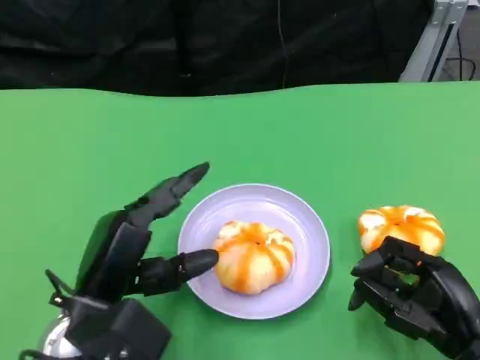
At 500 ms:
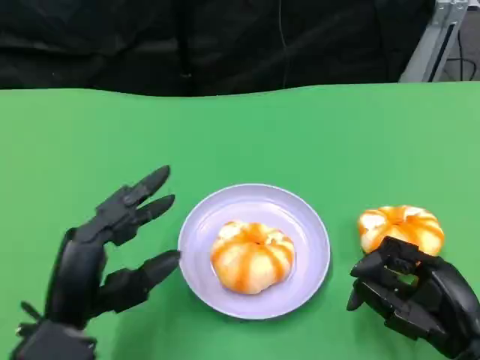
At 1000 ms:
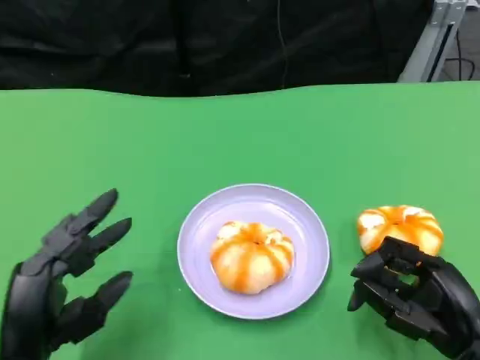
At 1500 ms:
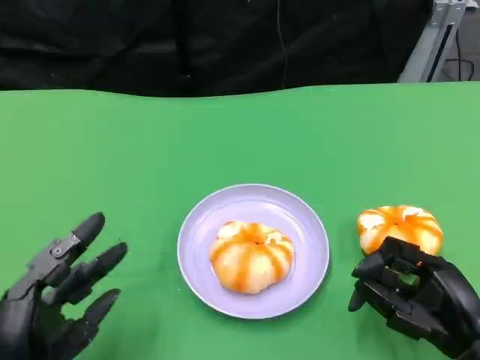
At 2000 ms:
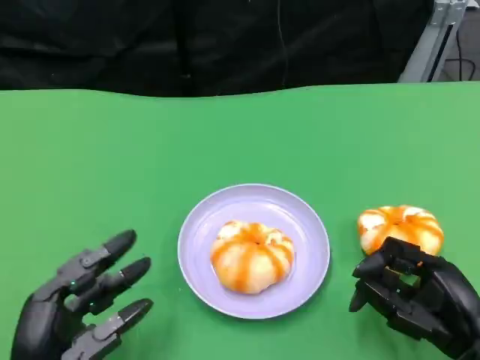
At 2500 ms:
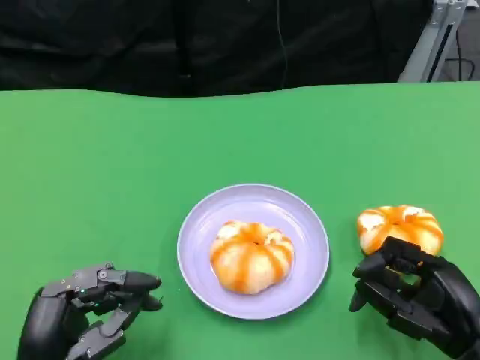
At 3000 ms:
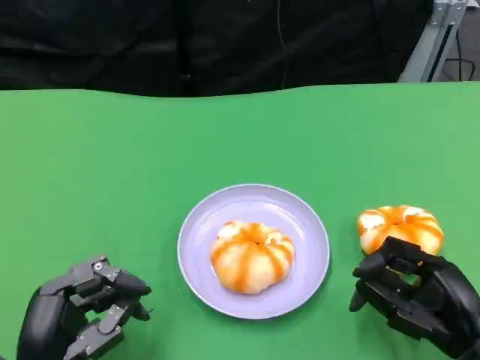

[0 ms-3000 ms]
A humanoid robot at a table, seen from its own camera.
Task of the whole recording: Grasp the bread from the table and place it into the plate.
0 ms to 1500 ms: The left hand goes some 10 cm backward and to the left.
1500 ms to 3000 ms: The hands stay close to where they were, moving slightly.

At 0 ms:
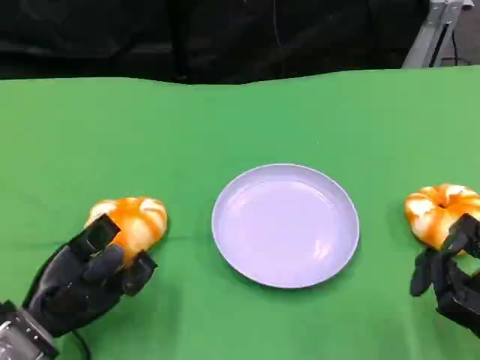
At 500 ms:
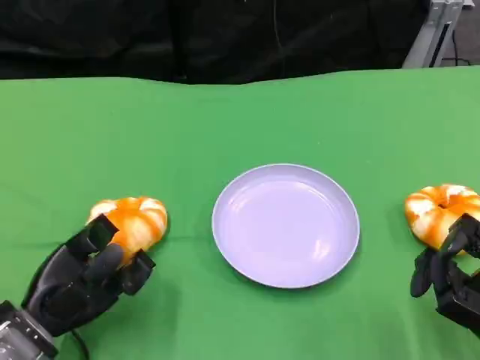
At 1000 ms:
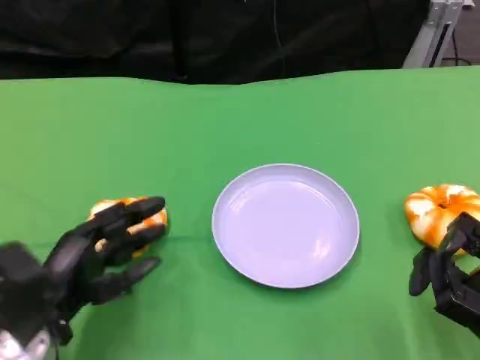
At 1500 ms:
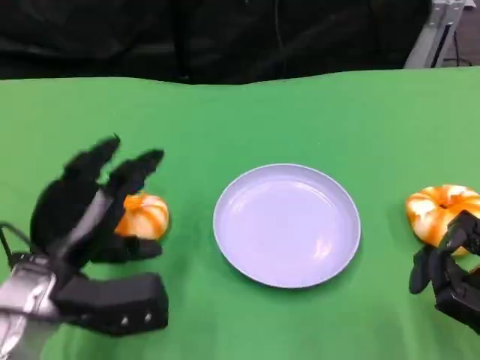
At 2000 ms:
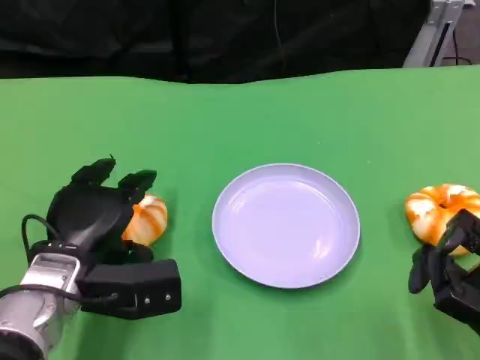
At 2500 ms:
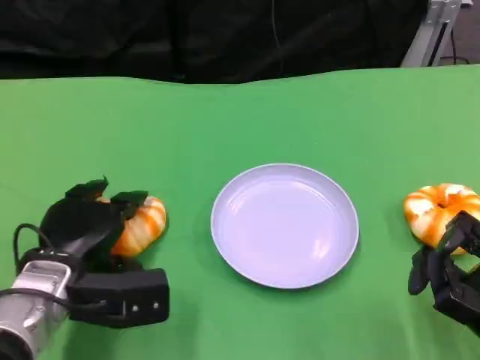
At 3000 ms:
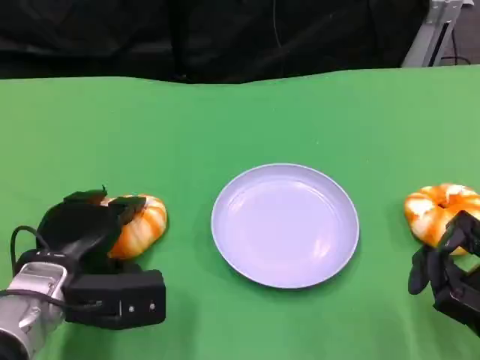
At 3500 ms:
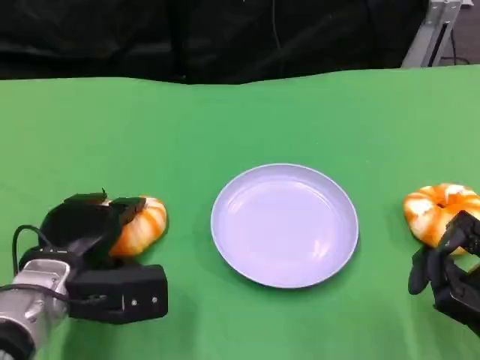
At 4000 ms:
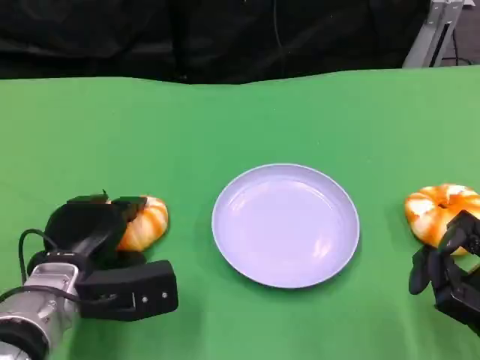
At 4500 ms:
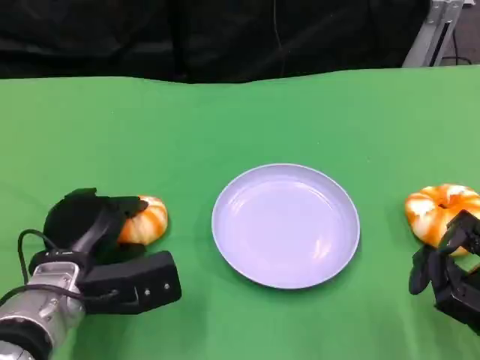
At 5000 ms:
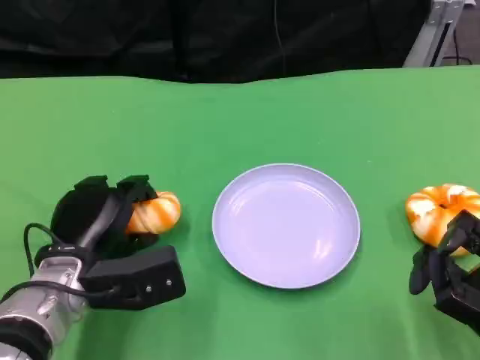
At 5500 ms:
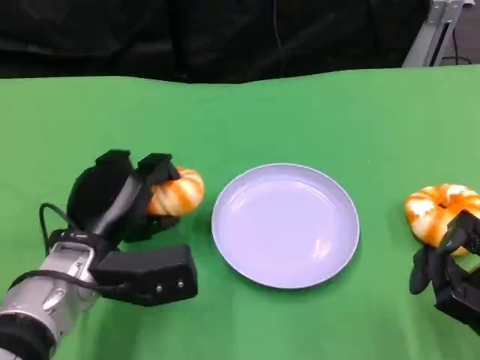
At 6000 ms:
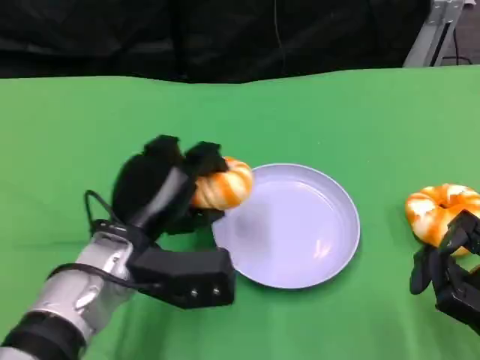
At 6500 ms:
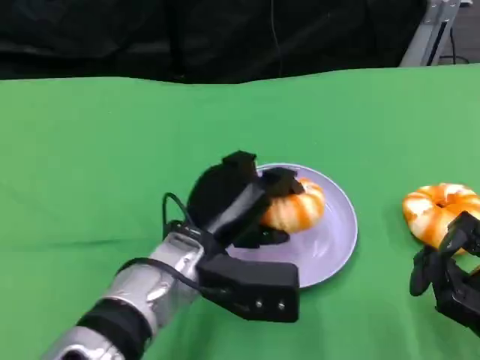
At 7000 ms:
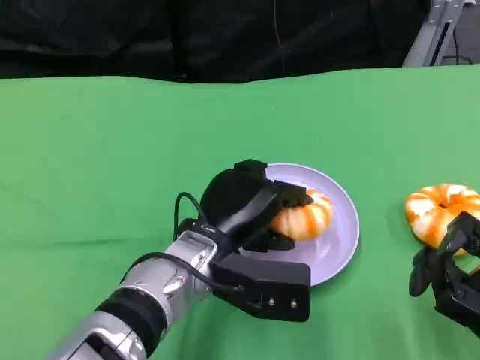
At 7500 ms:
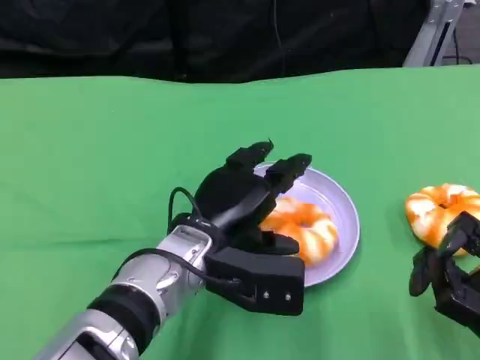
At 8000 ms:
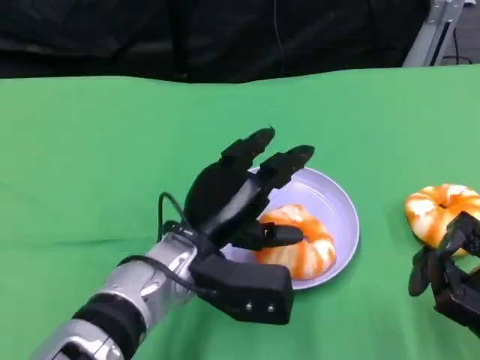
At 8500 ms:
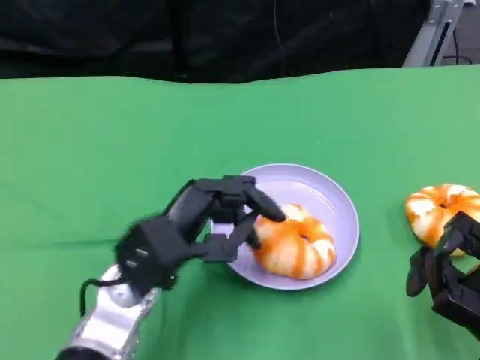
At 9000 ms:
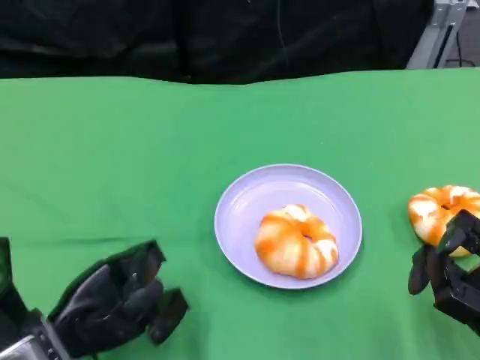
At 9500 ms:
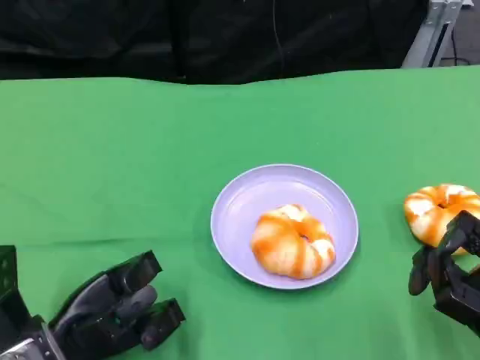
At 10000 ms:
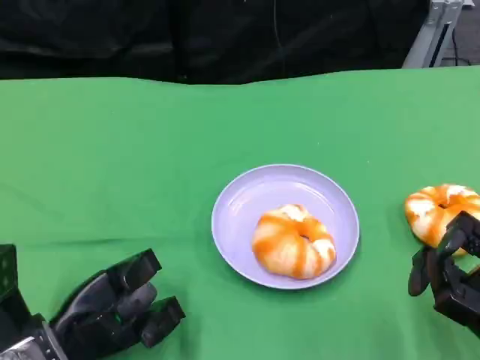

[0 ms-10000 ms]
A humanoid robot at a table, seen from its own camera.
Task of the whole recording: Grasp the bread from the table and place it into the plate.
0 ms to 2000 ms: The left hand heads to the right, covering approximately 5 cm.
2000 ms to 4000 ms: The hands move only a little.
4000 ms to 6000 ms: The left hand moves to the right, some 5 cm.
6000 ms to 8000 ms: The left hand moves to the right, some 5 cm.
8000 ms to 10000 ms: The left hand shifts some 15 cm to the left and downward.

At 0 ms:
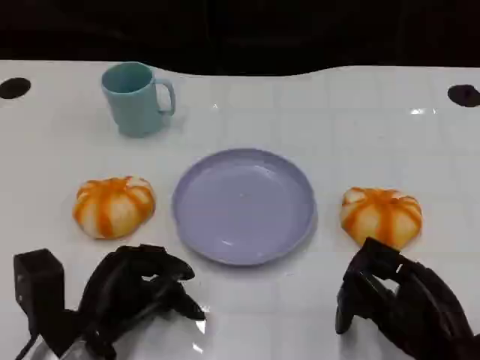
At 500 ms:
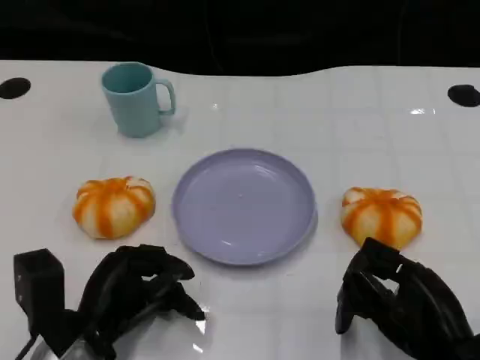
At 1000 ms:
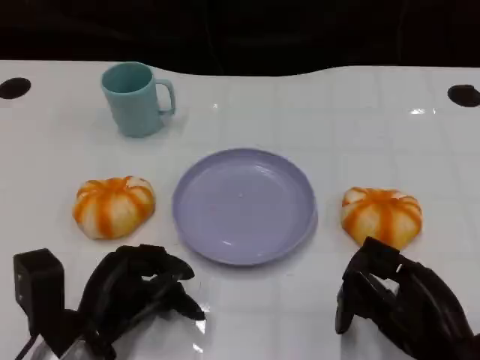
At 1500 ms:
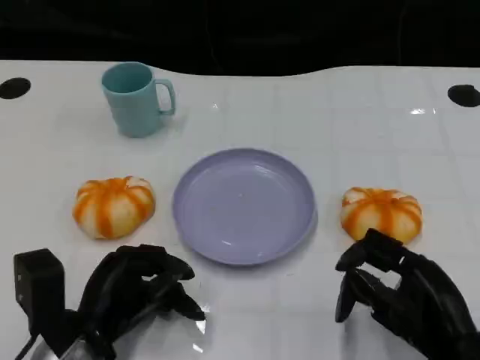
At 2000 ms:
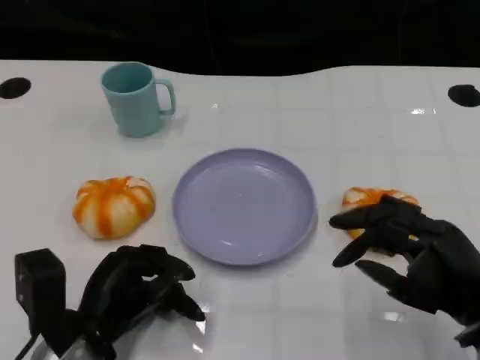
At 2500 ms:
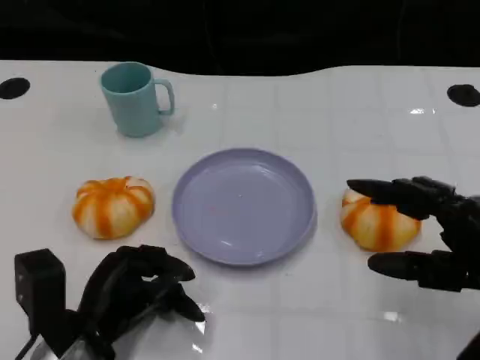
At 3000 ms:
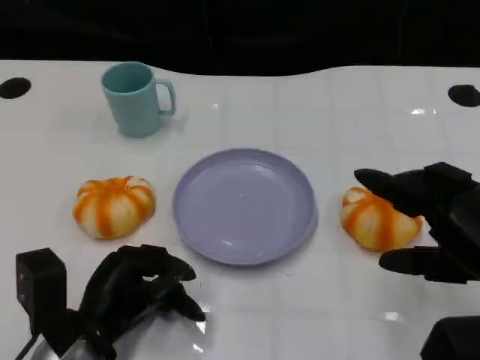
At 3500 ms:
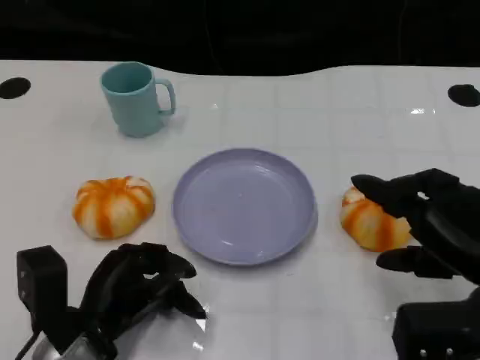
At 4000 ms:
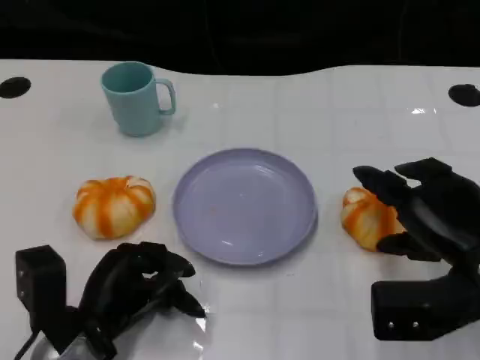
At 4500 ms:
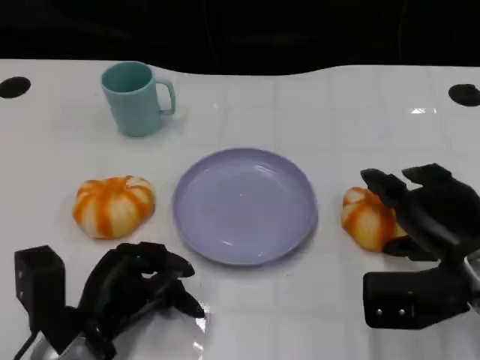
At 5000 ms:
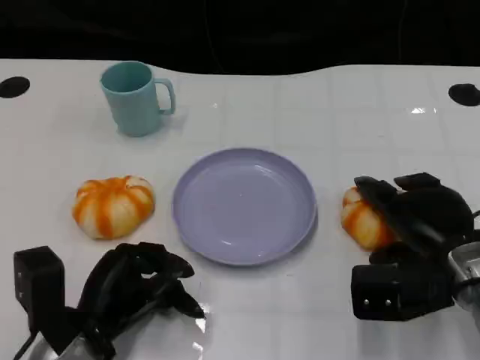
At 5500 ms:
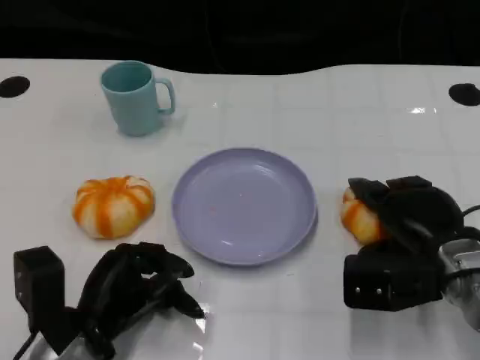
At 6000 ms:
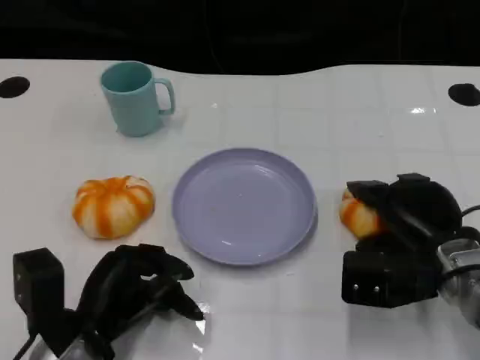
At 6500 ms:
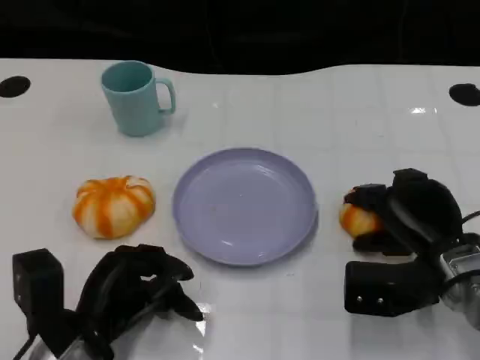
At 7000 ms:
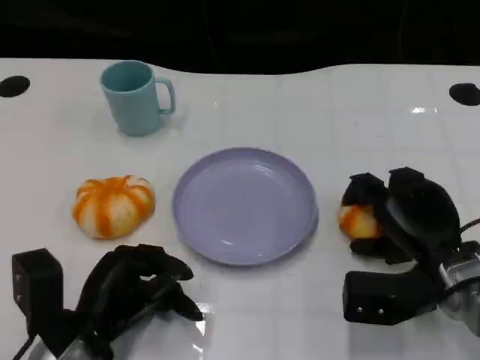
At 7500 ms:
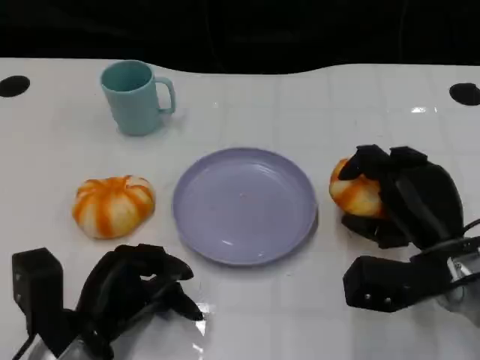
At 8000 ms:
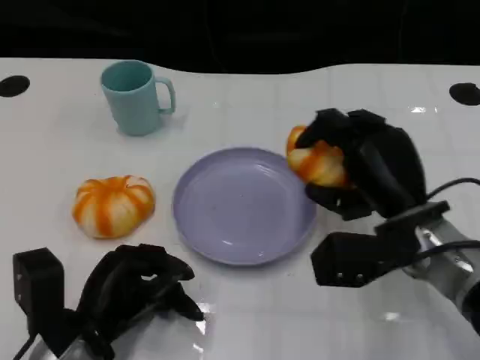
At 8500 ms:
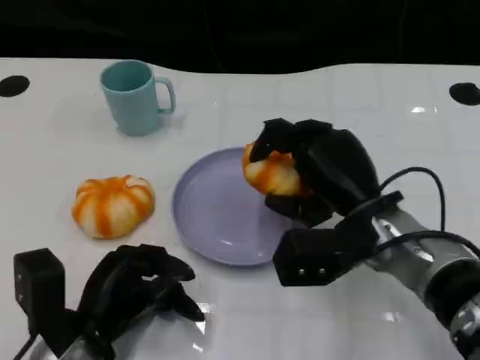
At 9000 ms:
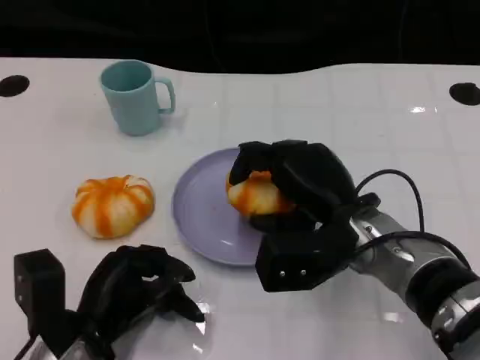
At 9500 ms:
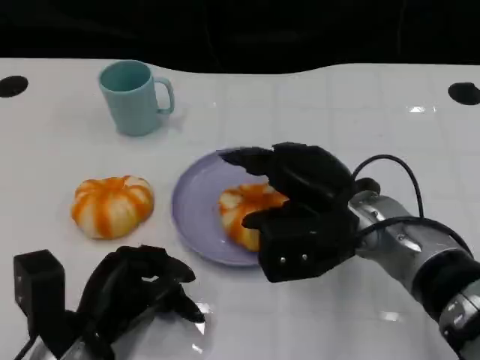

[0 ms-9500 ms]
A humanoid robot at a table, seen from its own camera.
Task of the whole recording: Grasp the bread from the table and place it into the plate.
2000 ms to 4000 ms: The right hand moves about 5 cm.
4000 ms to 5500 ms: The right hand ends up about 5 cm from where it was.
7500 ms to 9500 ms: The right hand goes roughly 10 cm to the left and upward.

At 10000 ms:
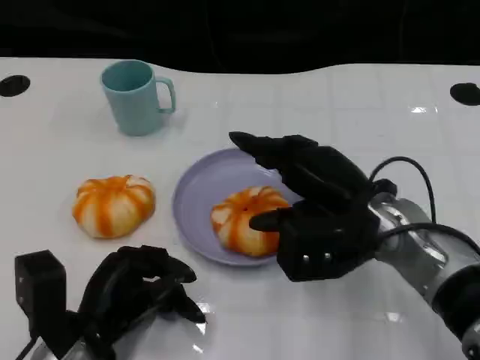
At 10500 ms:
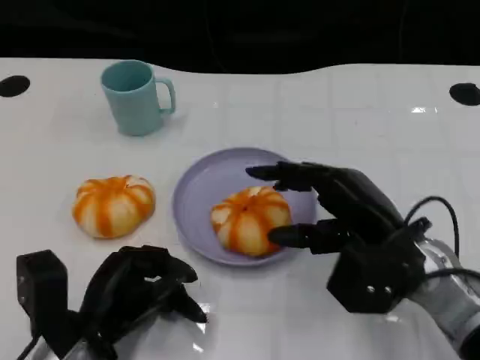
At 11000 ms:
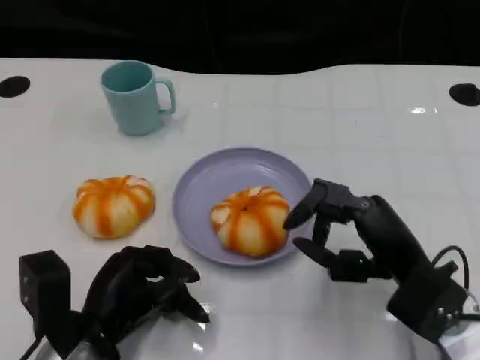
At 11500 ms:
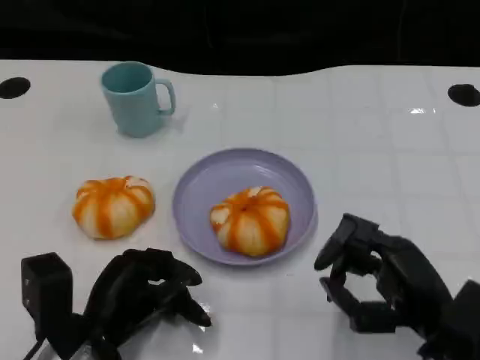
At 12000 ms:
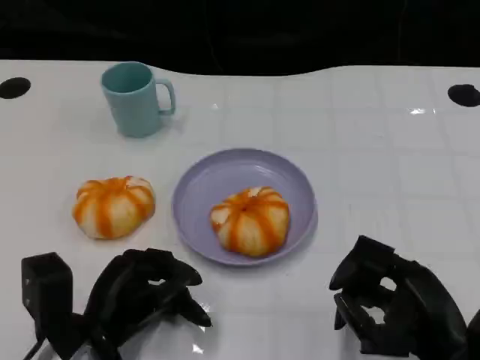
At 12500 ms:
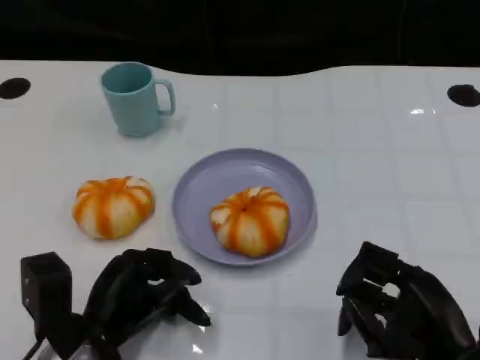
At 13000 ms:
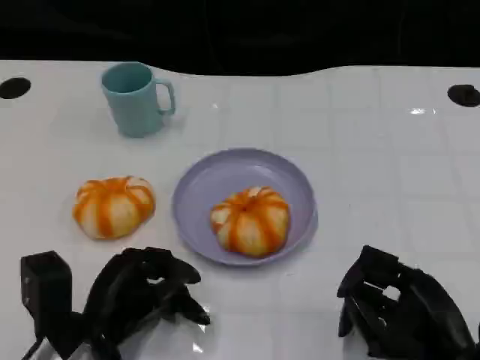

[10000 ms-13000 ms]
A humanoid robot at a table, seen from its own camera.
Task of the whole recording: Grasp the bread from the table and place it into the plate.
10000 ms to 11500 ms: The right hand heads backward and to the right, covering approximately 10 cm.
11500 ms to 13000 ms: The hands stay close to where they were, moving slightly.
